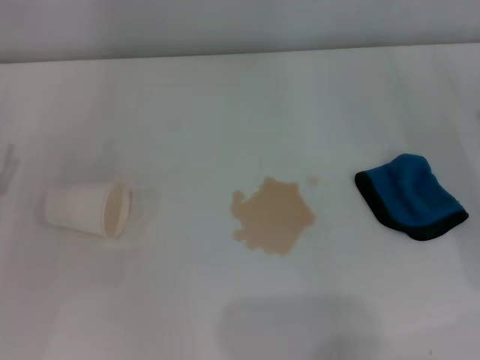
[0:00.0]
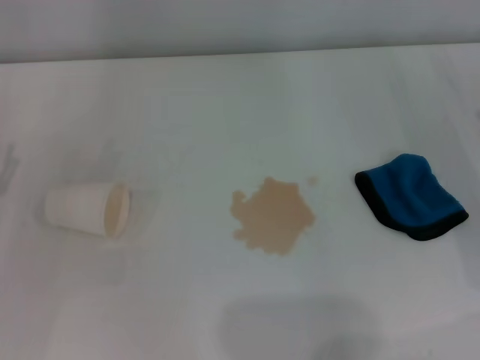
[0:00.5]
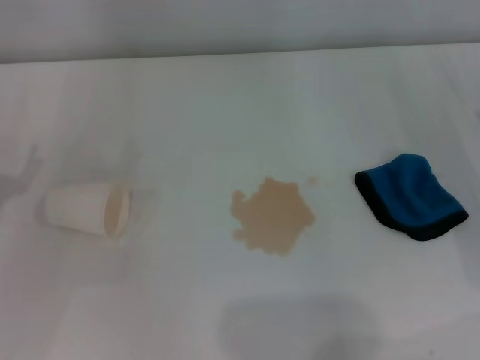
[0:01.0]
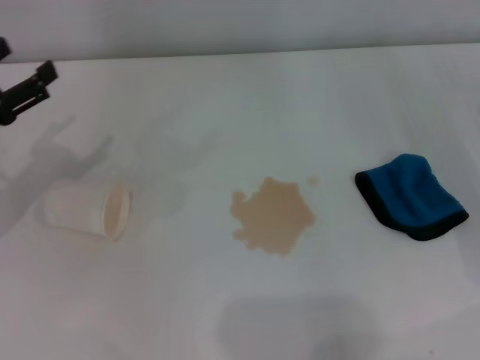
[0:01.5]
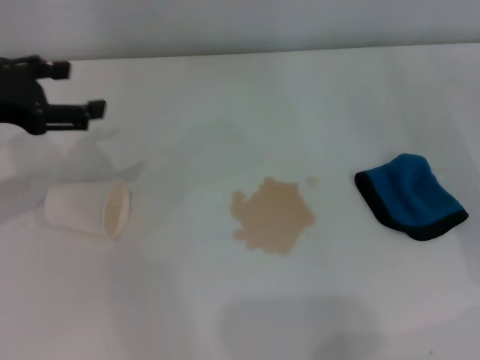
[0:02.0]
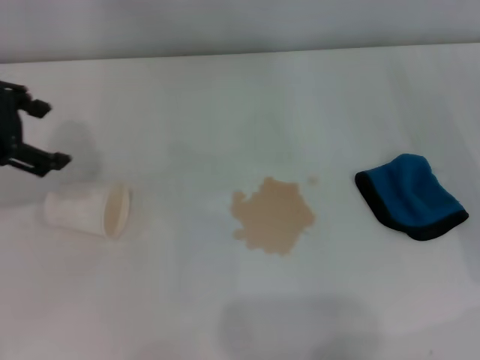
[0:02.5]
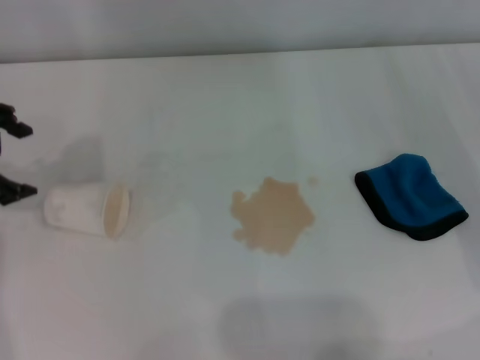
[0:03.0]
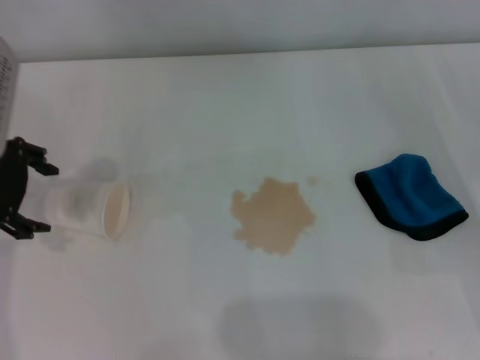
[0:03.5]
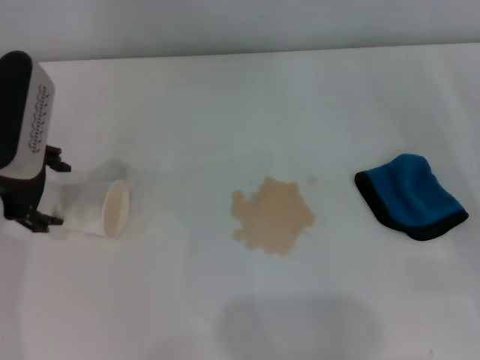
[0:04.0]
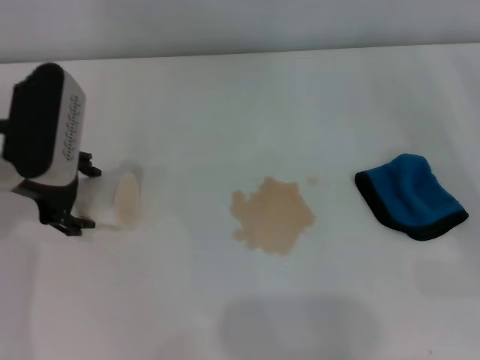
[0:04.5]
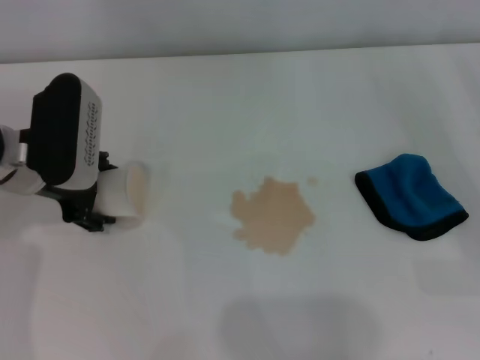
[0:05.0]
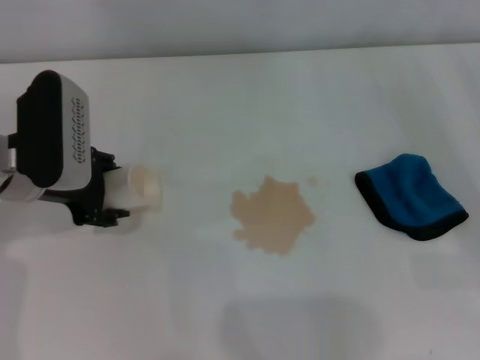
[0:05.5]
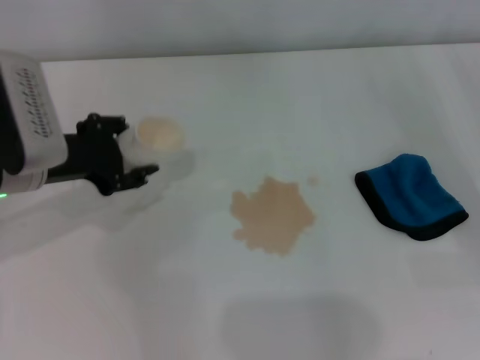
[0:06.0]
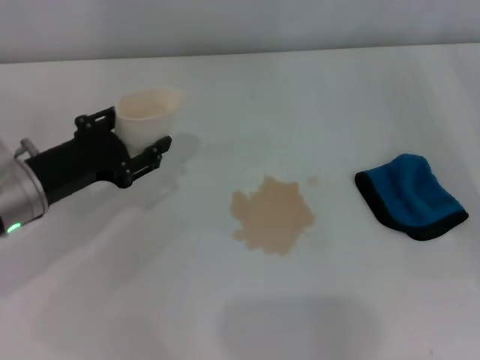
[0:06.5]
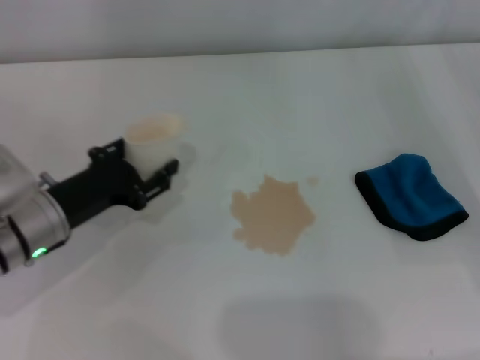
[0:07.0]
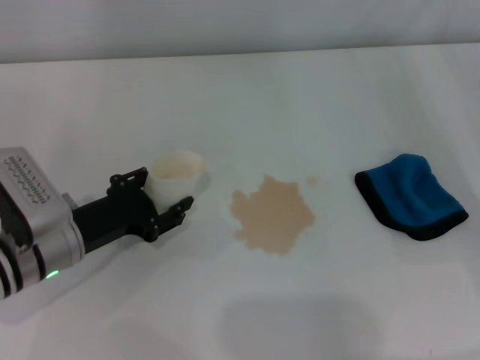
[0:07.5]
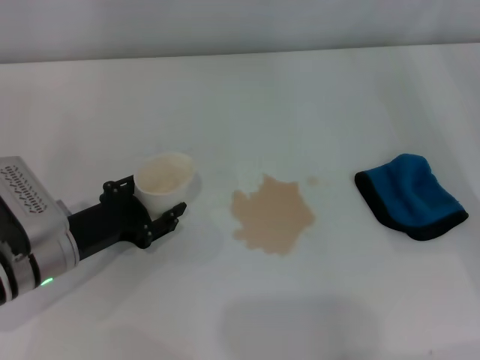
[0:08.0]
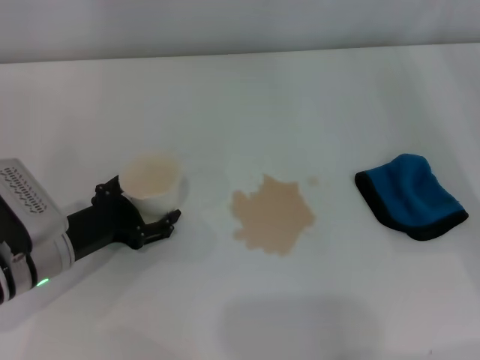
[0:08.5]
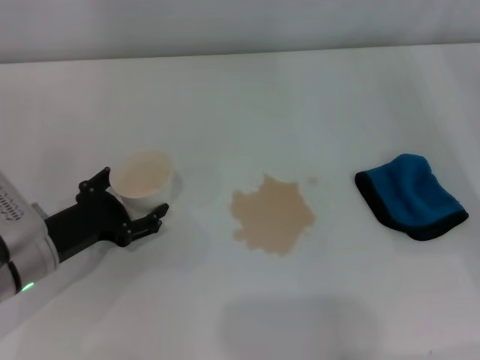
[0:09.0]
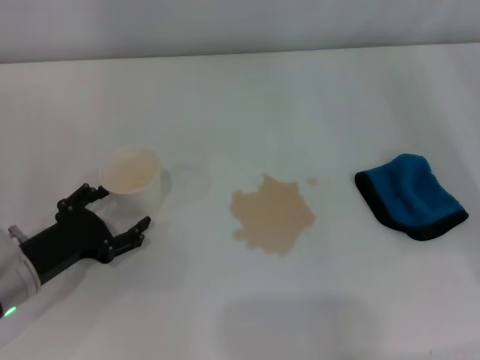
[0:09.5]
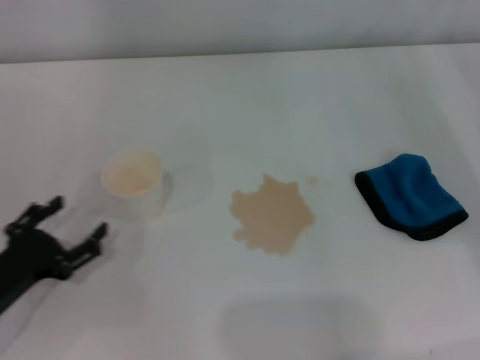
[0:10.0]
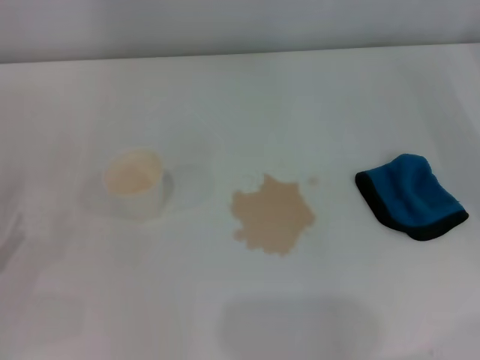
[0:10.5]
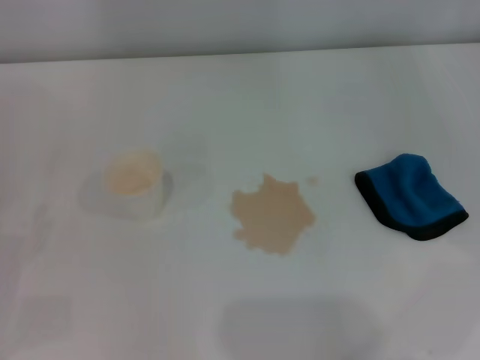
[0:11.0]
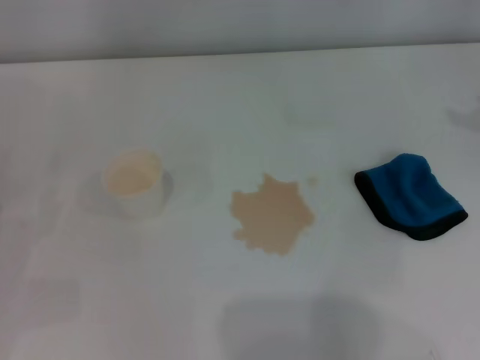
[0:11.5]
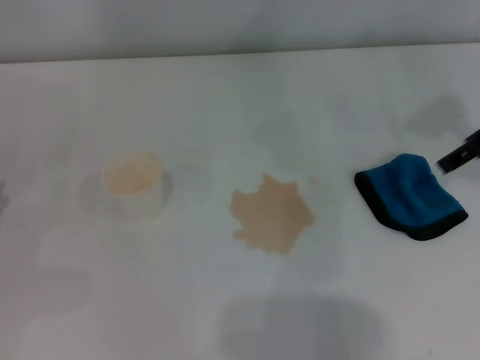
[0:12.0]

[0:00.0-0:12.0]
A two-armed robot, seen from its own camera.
Step, 0:00.0 to 0:05.0: Grasp the paper cup with the left gripper.
Step, 0:05.5 to 0:09.0: Stand the paper cup upright with the left gripper.
0:00.0 to 0:02.0: The left gripper moves upward and forward, approximately 15 cm.
0:02.0 to 0:04.0: The left gripper shifts by about 5 cm.
0:04.0 to 0:06.0: The left gripper closes.
0:06.0 to 0:08.0: The left gripper goes some 10 cm downward and backward.
0:08.0 to 0:10.0: The left gripper travels to the left and backward by approximately 10 cm, and opens up.
0:10.0 to 0:12.0: The right gripper is displaced upward, forward and to the left by roughly 15 cm. Meanwhile the left gripper is displaced to the left by approximately 5 cm.

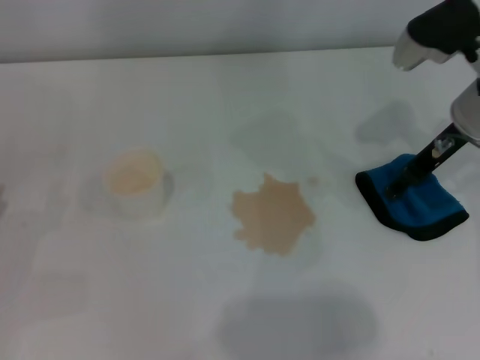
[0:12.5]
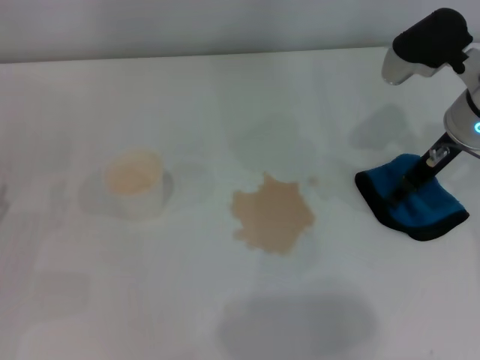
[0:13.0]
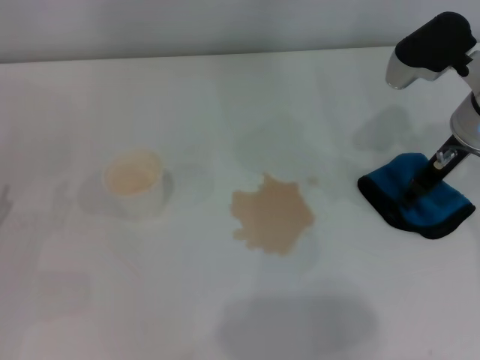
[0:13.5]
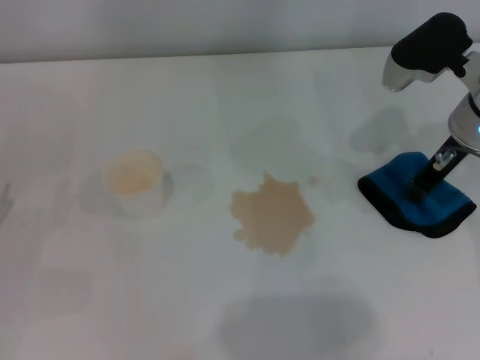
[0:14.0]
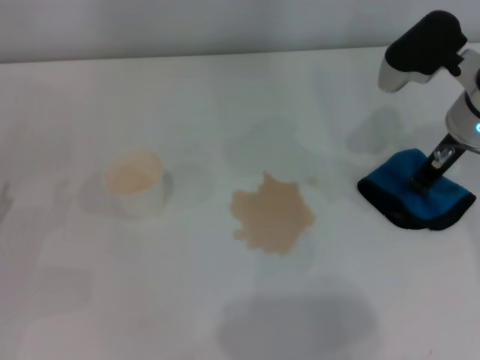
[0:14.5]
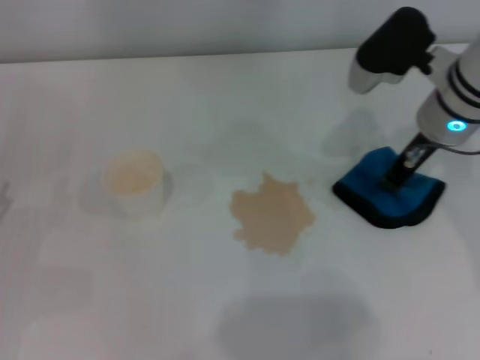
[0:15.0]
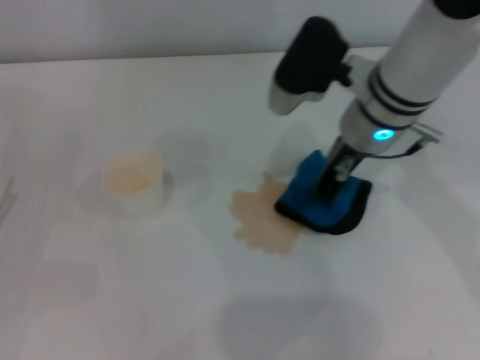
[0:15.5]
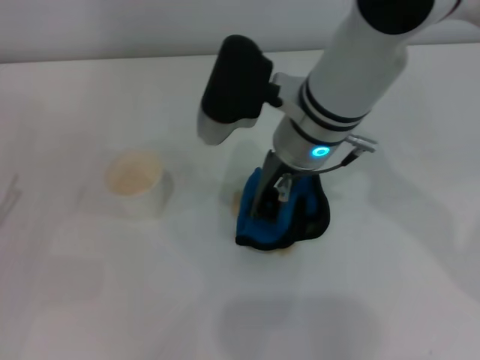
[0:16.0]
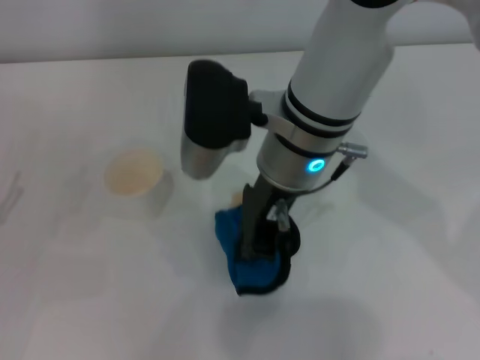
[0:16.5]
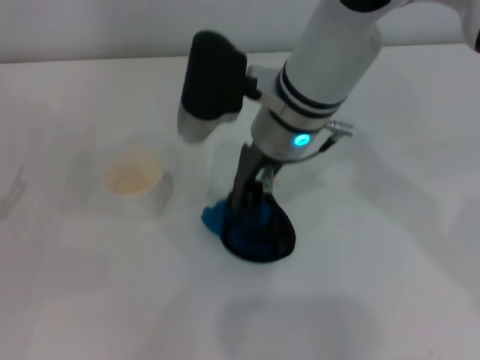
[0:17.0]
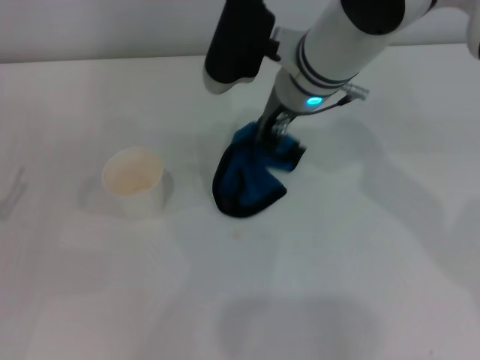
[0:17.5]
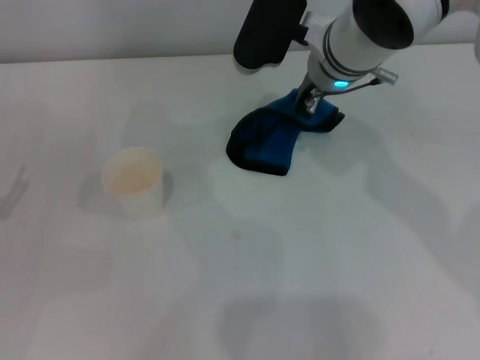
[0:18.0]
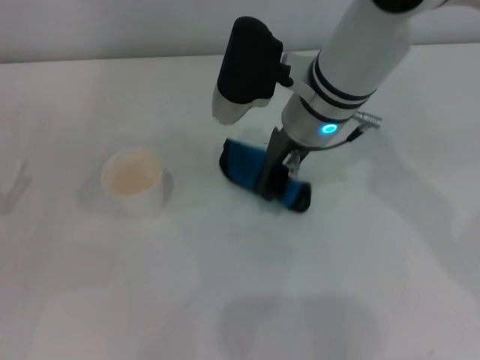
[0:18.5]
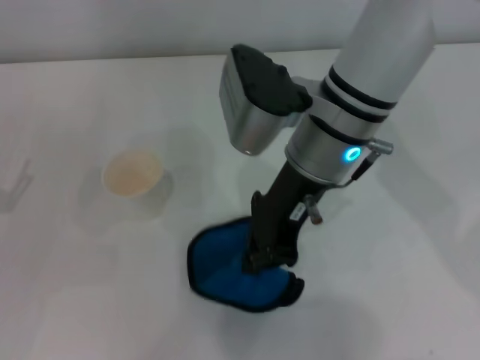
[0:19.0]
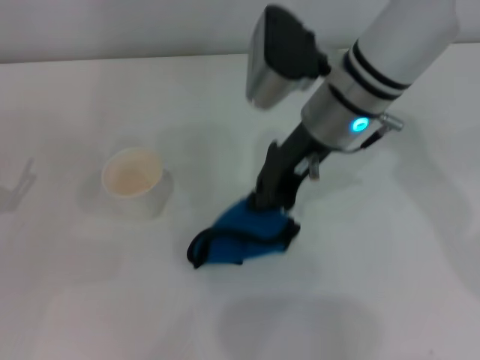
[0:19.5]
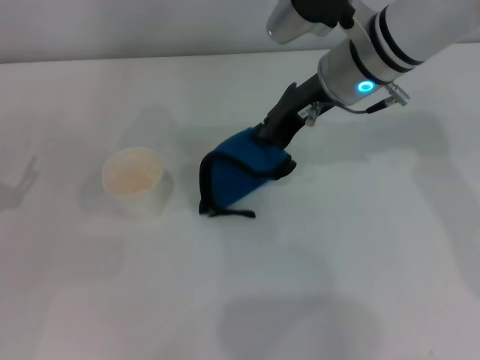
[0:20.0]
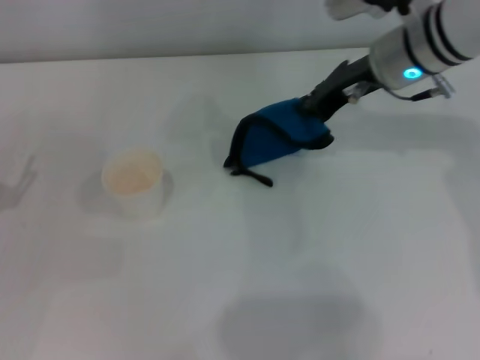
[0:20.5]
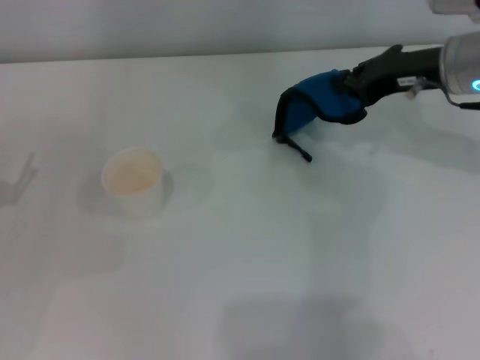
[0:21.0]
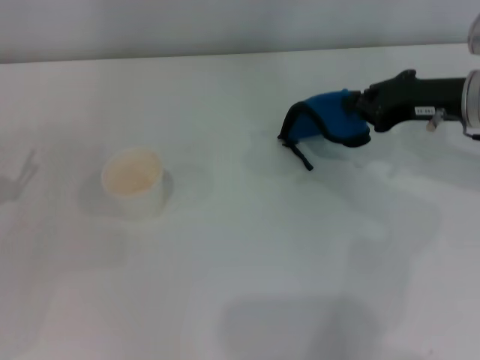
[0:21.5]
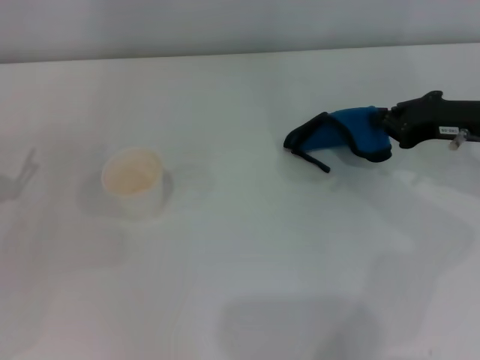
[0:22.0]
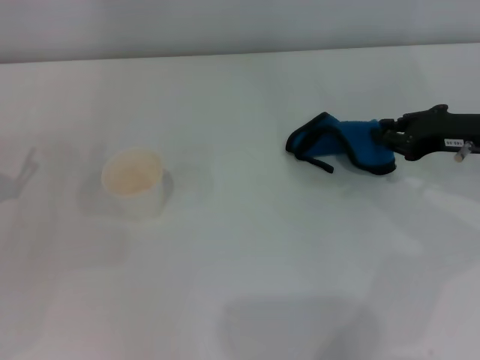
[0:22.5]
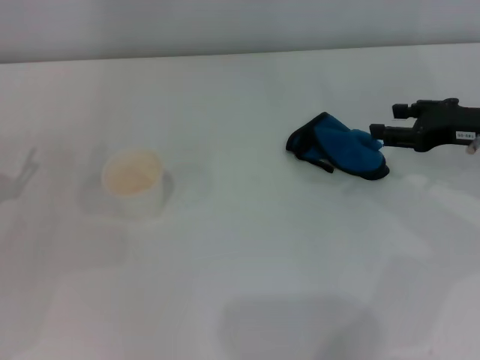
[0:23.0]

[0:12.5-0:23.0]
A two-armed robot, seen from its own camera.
Step, 0:12.5 to 0:14.5: Grasp the rag with the right gripper.
Step, 0:15.0 to 0:21.5: Wipe the stains off the table with the right gripper.
0:12.5 to 0:14.5: The right gripper closes its fingers.
0:14.5 to 0:16.5: The right gripper shifts approximately 20 cm to the left.
0:16.5 to 0:19.0: The right gripper moves about 10 cm forward and comes back.
0:19.0 to 0:21.0: The right gripper shifts about 15 cm to the right.
0:21.0 to 0:23.0: The right gripper travels to the right, downward and backward by about 10 cm, and opens.

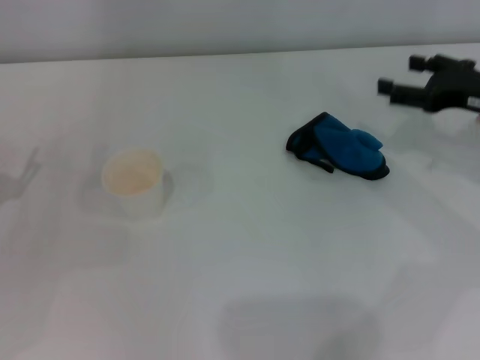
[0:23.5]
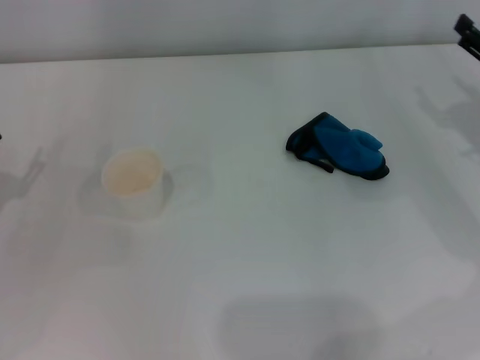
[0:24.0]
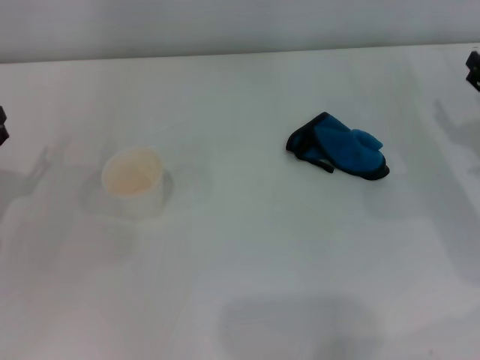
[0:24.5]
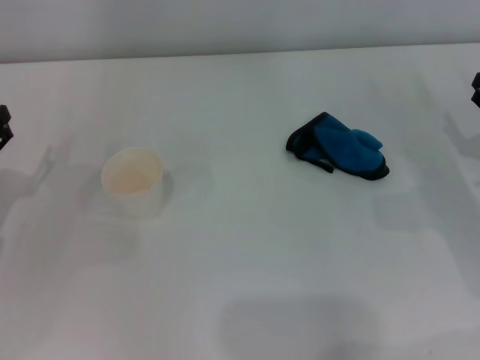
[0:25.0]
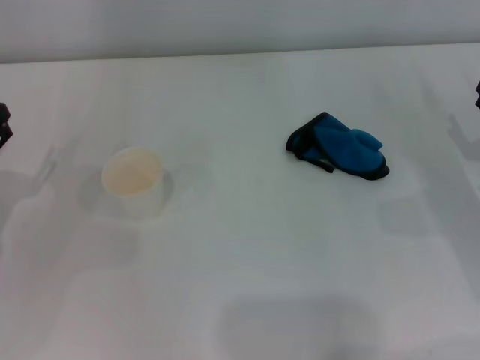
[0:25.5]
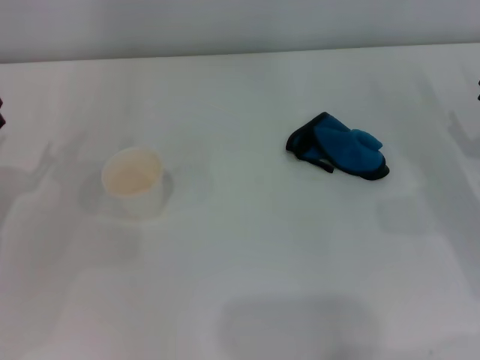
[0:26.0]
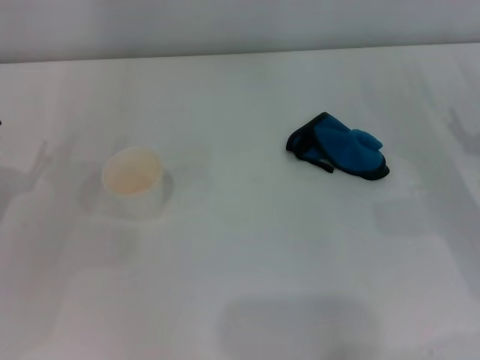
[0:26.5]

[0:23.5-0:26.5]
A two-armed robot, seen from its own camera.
0:23.5 to 0:25.0: The right gripper travels downward and backward by about 10 cm.
